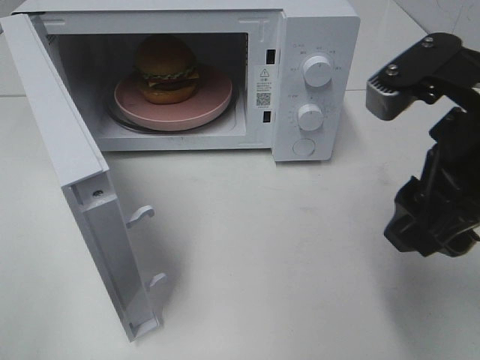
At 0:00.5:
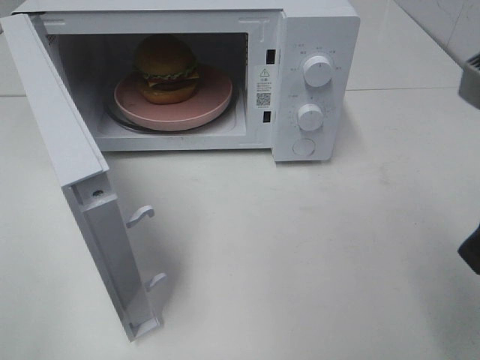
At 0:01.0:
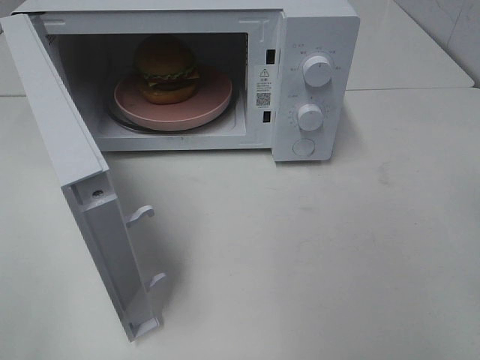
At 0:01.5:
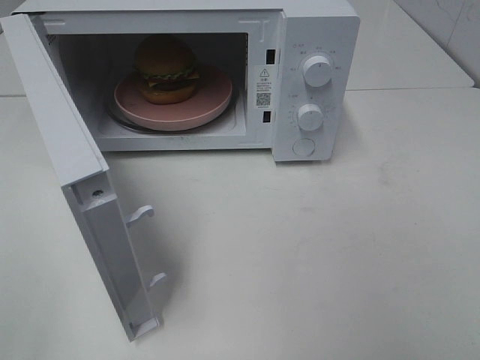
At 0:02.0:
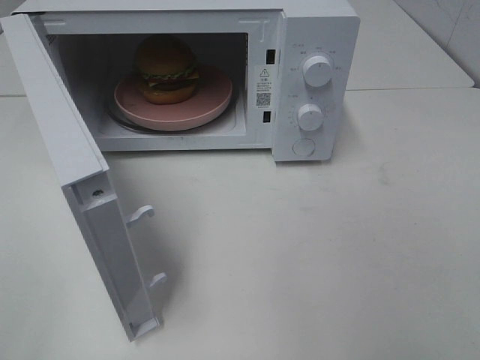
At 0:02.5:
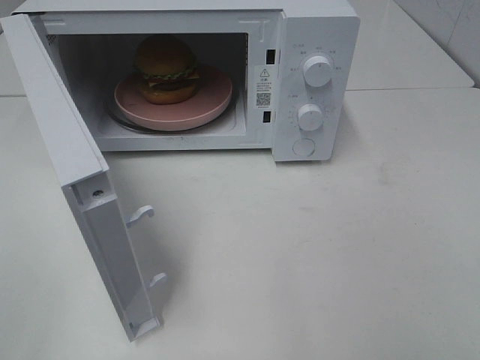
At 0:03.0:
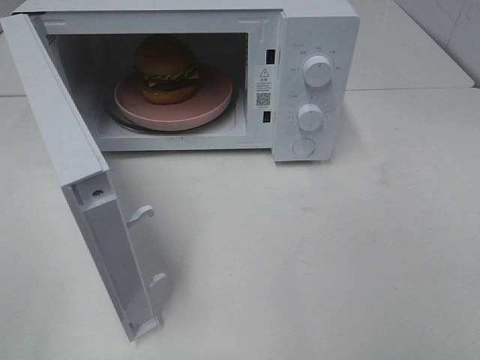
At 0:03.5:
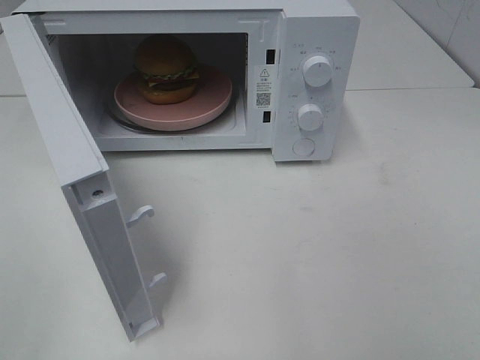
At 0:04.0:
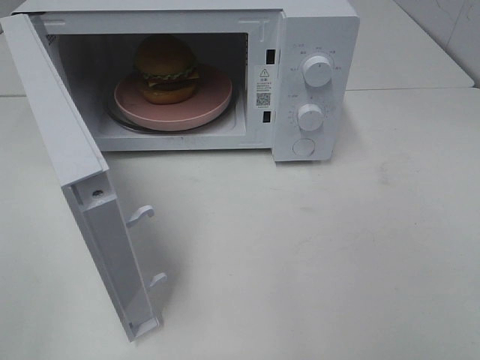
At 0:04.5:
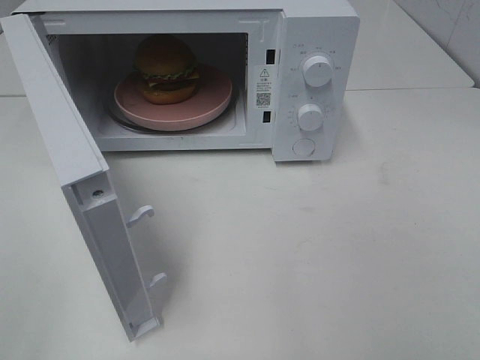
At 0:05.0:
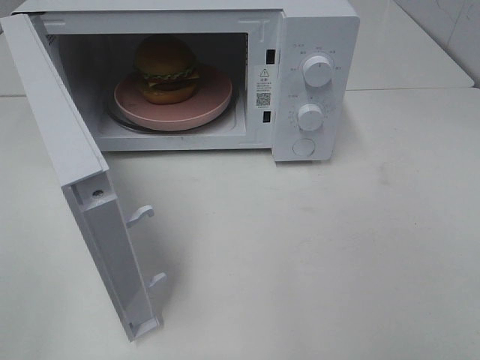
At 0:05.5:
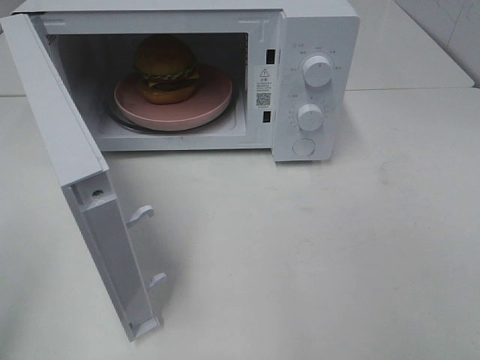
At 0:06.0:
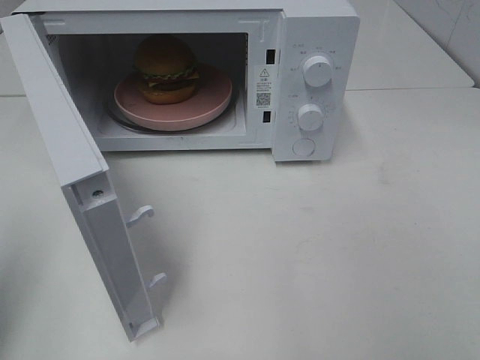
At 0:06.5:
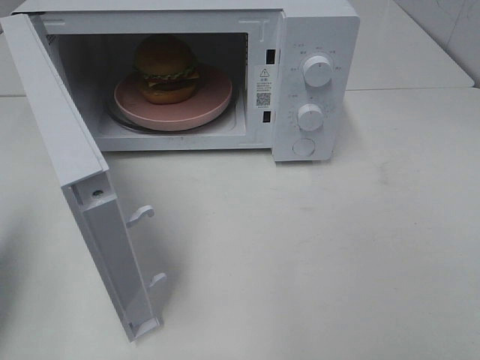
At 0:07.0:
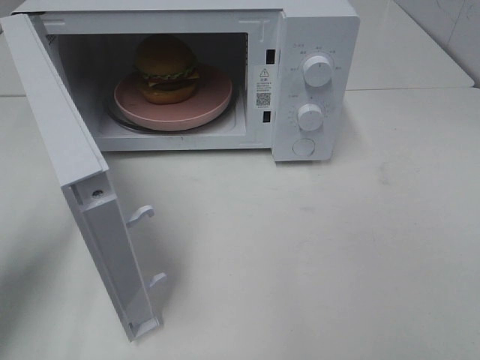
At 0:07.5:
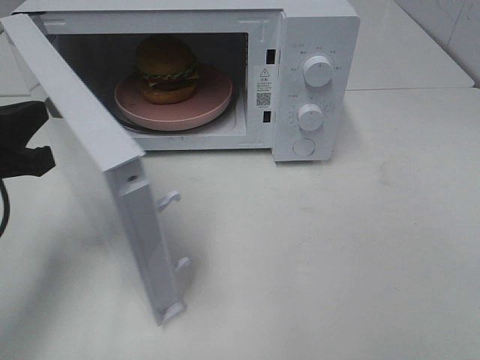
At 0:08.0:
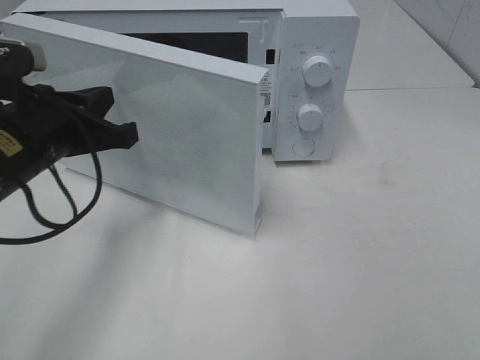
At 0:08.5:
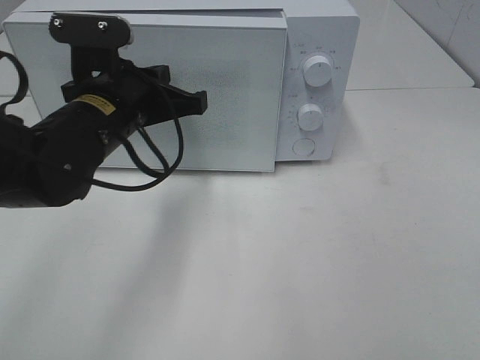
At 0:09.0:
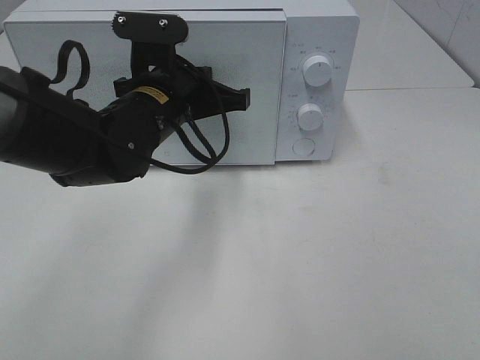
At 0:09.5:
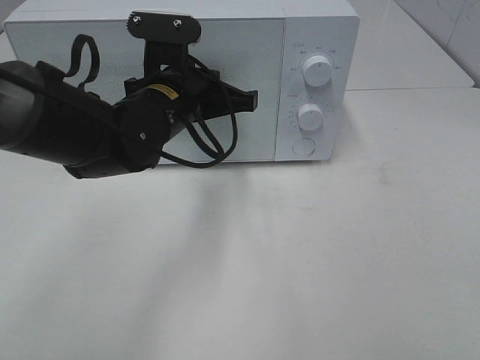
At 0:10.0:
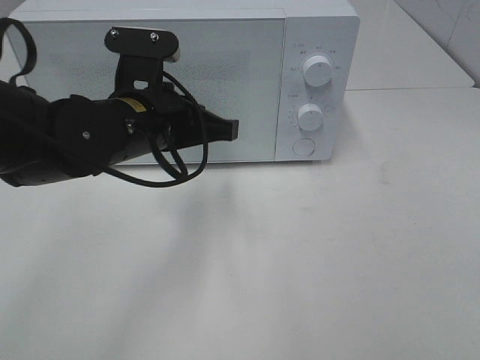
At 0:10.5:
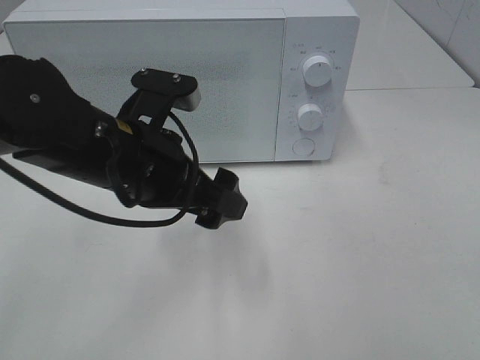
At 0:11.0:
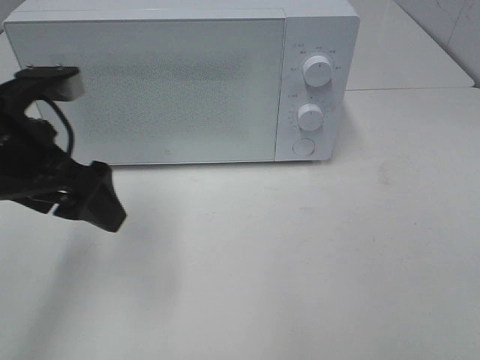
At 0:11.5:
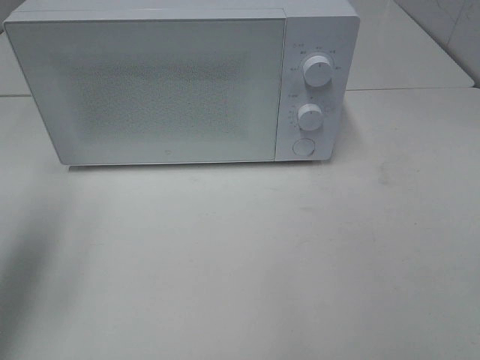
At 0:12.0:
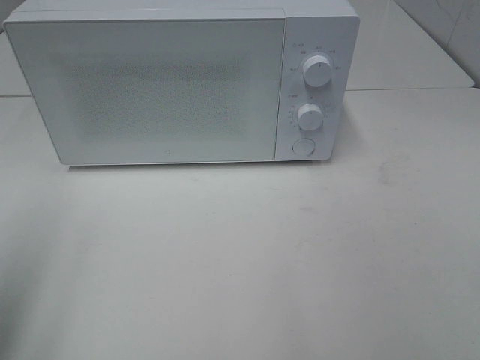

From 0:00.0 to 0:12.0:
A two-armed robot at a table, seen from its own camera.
Task of the whole recording: Heat the burger.
Step, from 0:00.0 to 0:10.0: Left hand: close the microwave door.
From 0:00.0 to 0:02.0: The right gripper goes approximately 20 cm backward and to the right.
From 0:04.0 to 0:06.0: The left gripper shifts roughly 10 cm forward, and closes.
From 0:06.0 to 0:08.0: The left gripper travels forward, to the right and downward by approximately 25 cm.
From 0:08.0 to 0:10.0: The left gripper is displaced to the right by approximately 10 cm.
From 0:10.0 to 0:12.0: The left gripper moves to the left, backward and upward, some 30 cm, and opens.

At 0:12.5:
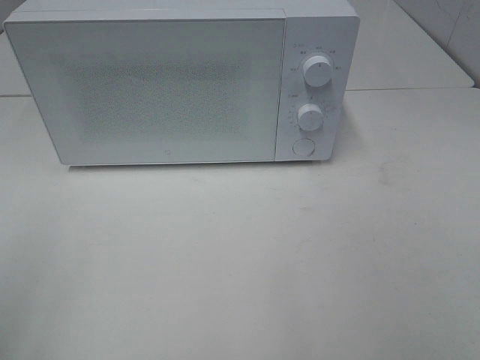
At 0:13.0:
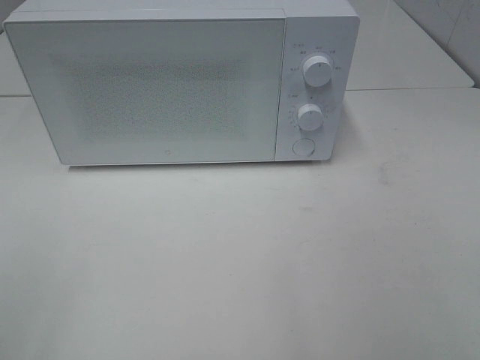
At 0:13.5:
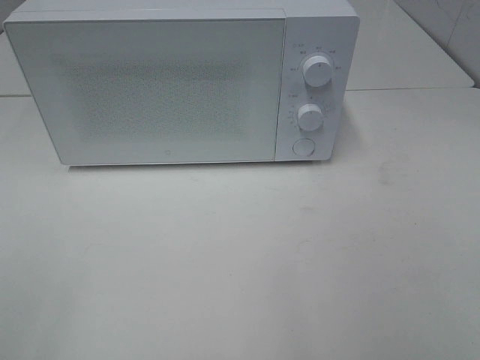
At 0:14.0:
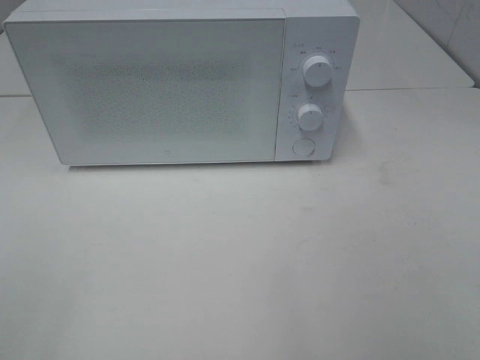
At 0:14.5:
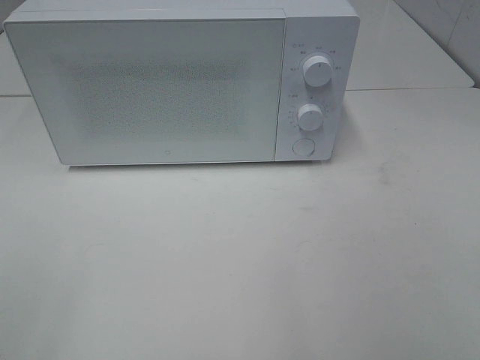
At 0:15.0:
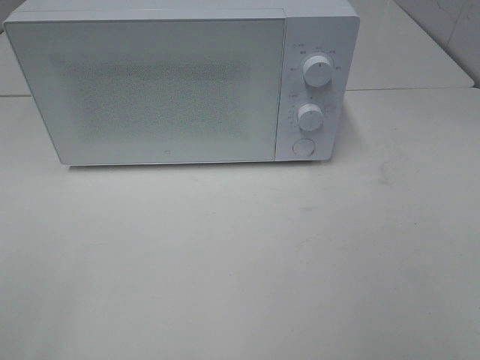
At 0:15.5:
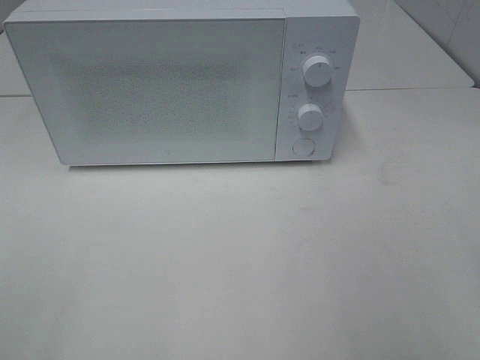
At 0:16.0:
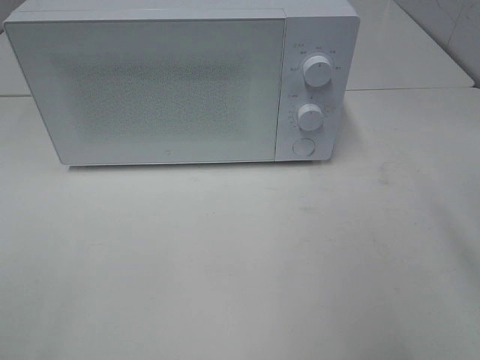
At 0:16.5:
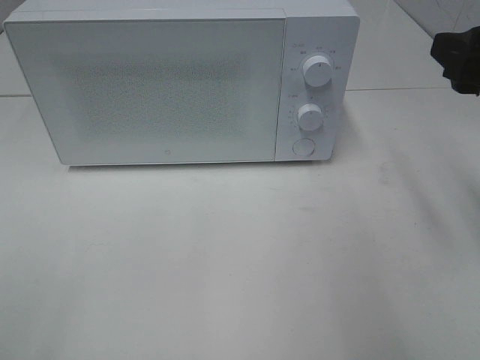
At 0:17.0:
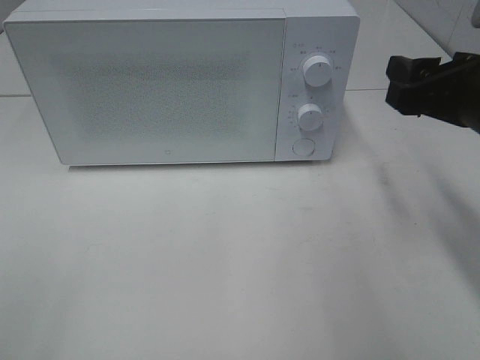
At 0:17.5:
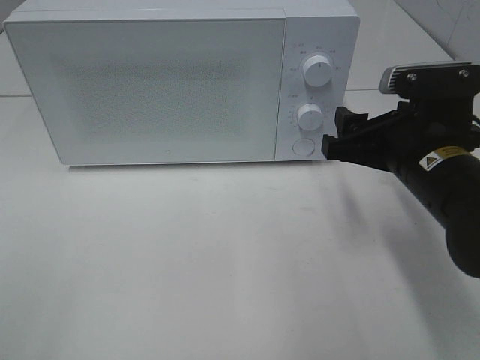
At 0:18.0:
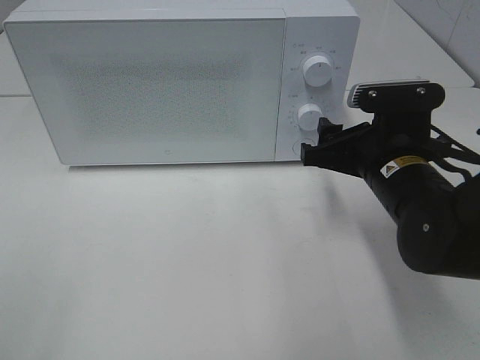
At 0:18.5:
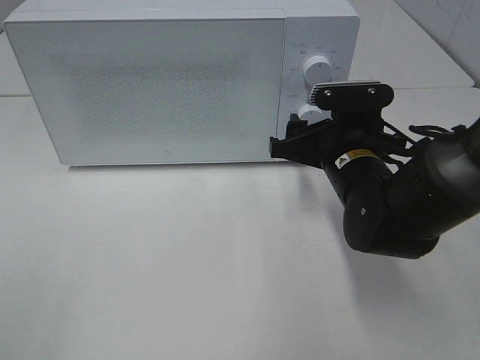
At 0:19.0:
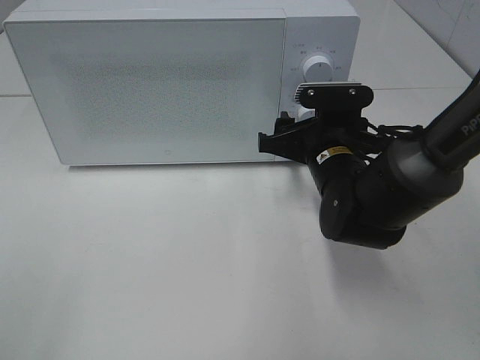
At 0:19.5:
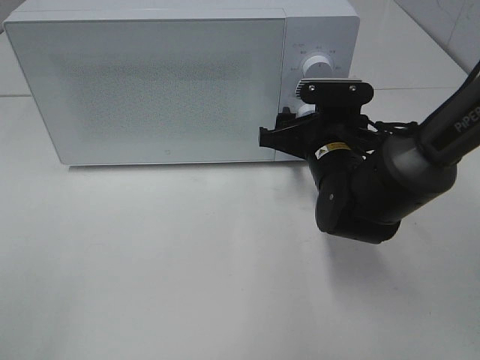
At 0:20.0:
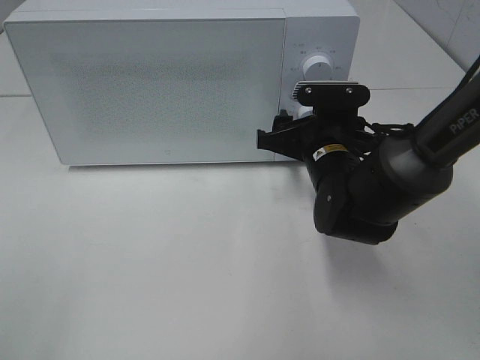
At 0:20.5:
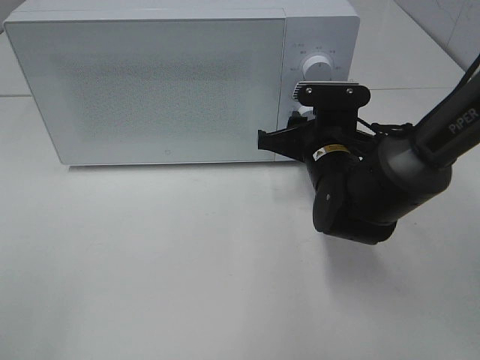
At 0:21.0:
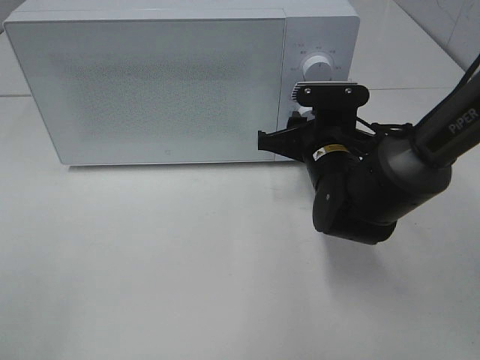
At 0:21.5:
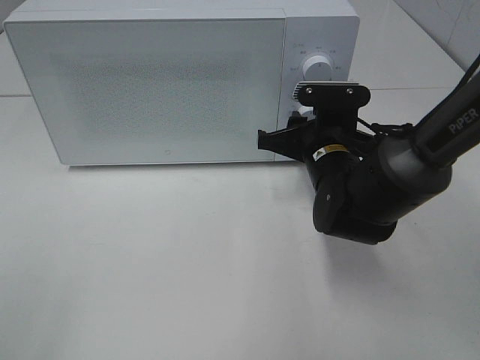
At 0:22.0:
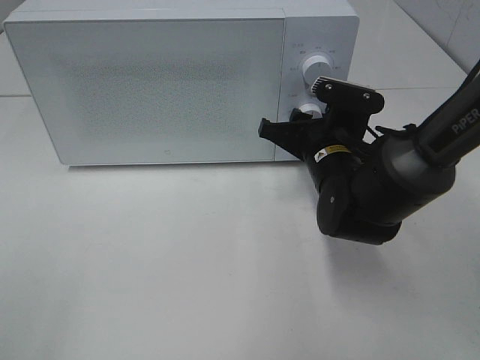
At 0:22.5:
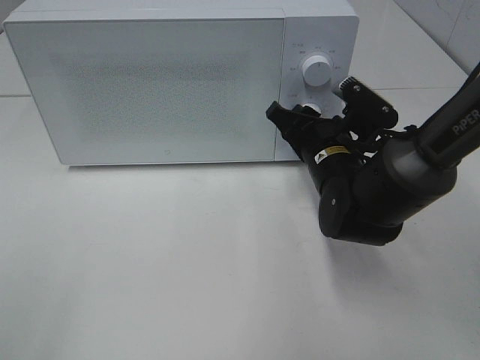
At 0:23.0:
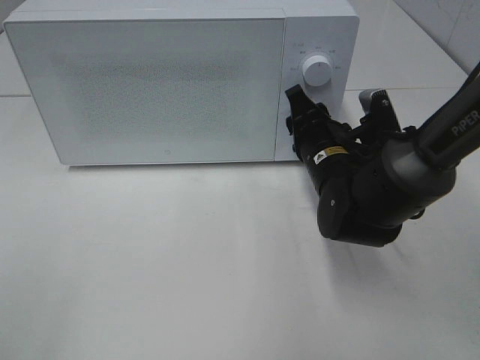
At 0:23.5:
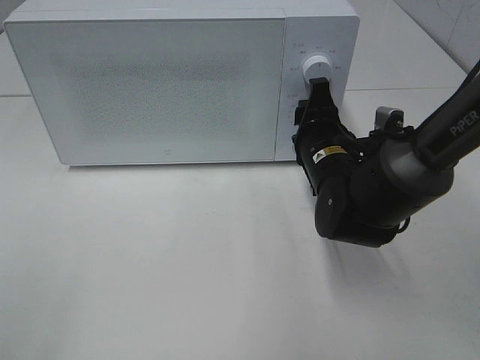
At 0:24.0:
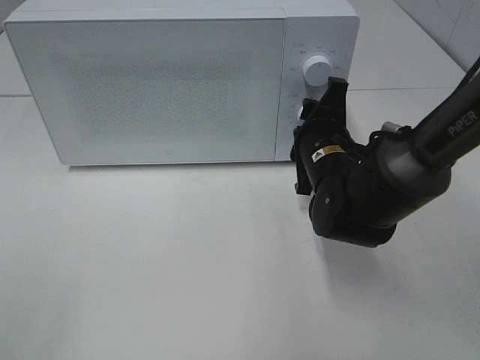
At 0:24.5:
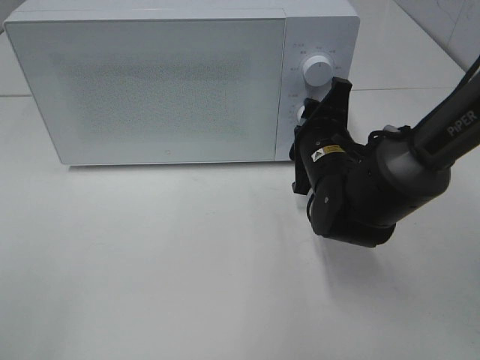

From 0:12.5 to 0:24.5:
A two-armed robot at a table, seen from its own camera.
Task of the whole recording: Heat the burger.
From 0:14.5 to 0:16.5: The right gripper moves forward, some 20 cm.
From 0:16.5 to 0:18.5: The right gripper is displaced downward, to the left and forward by roughly 20 cm.
From 0:18.5 to 0:20.5: There are only small adjustments of the grippers.

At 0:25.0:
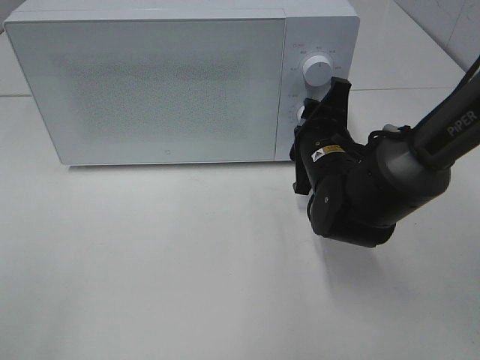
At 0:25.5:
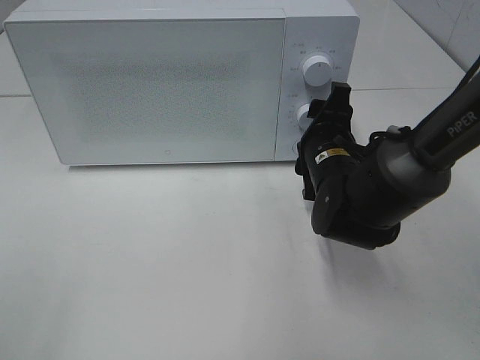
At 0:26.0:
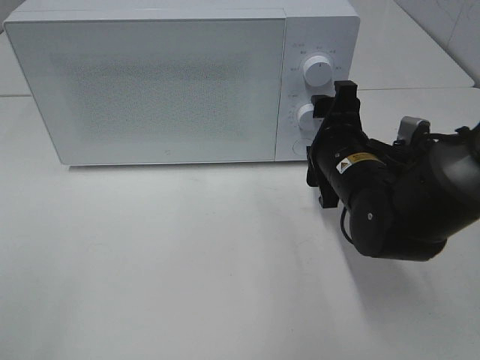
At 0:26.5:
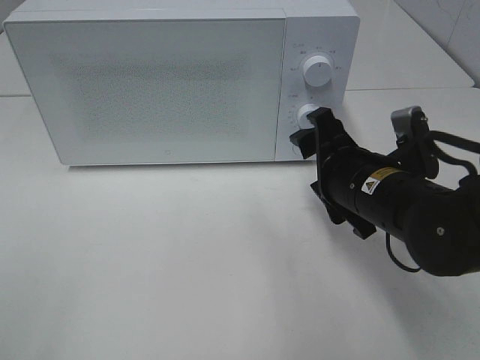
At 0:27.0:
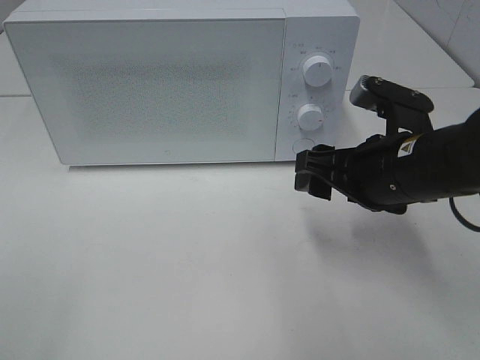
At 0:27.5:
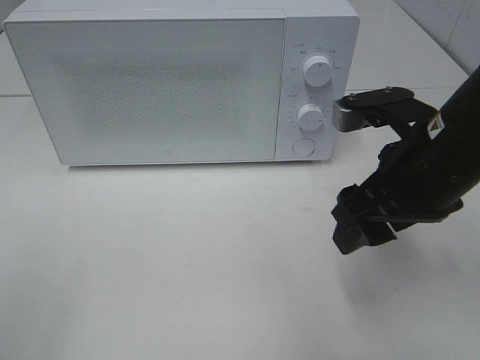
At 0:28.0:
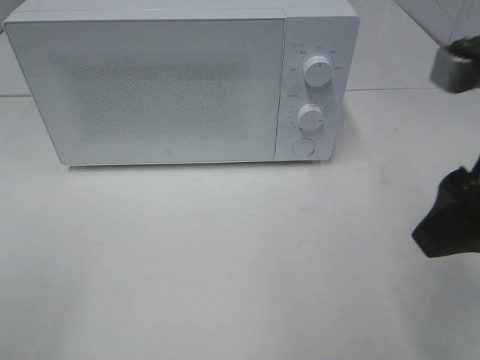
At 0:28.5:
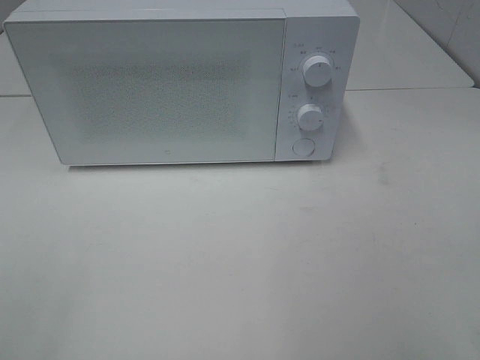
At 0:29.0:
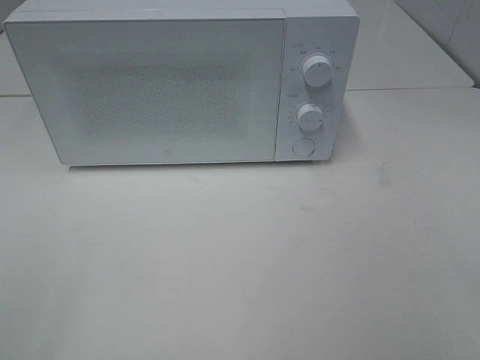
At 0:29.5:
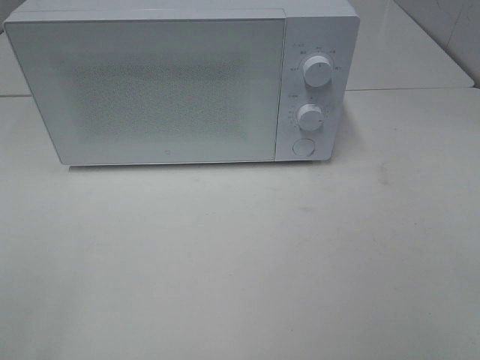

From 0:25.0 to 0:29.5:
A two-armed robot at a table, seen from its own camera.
Task of the whole recording: Heat the burger.
From 0:25.0 to 0:27.0: The right gripper moves backward and upward, about 10 cm.
From 0:27.0 to 0:29.5: The right gripper heads backward, to the right and upward, covering some 30 cm.
